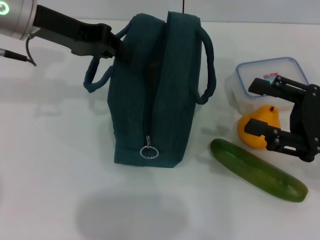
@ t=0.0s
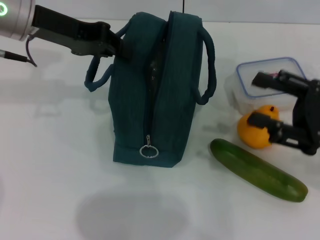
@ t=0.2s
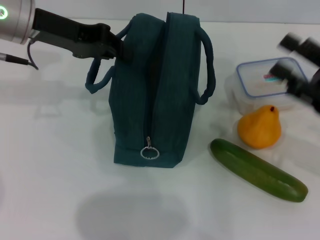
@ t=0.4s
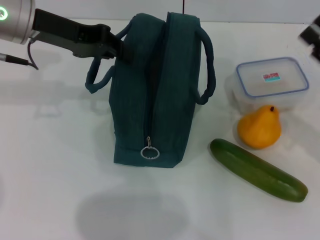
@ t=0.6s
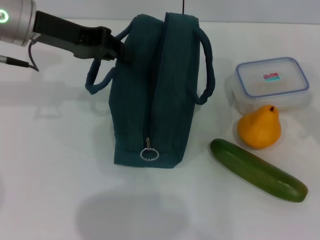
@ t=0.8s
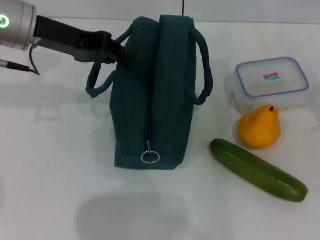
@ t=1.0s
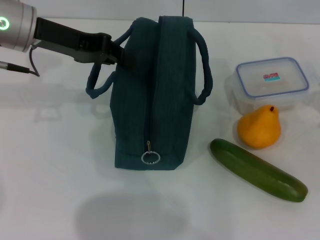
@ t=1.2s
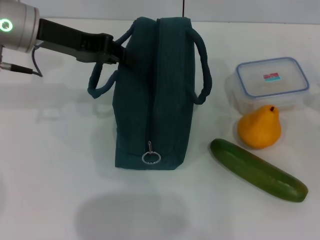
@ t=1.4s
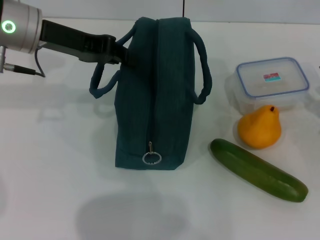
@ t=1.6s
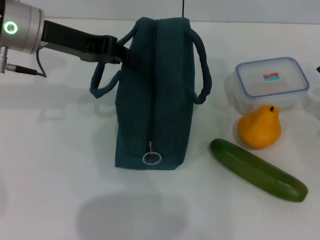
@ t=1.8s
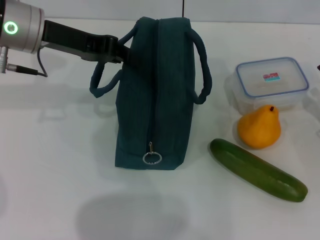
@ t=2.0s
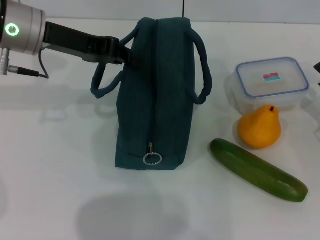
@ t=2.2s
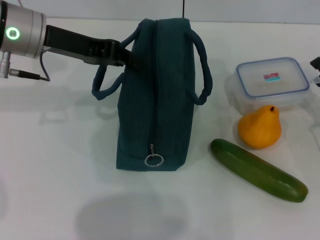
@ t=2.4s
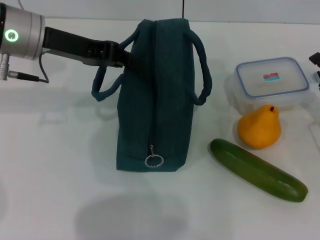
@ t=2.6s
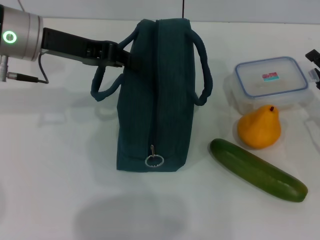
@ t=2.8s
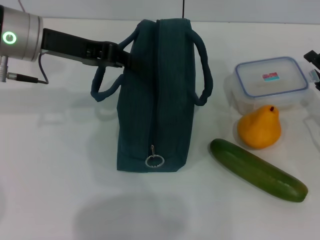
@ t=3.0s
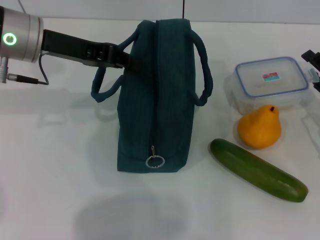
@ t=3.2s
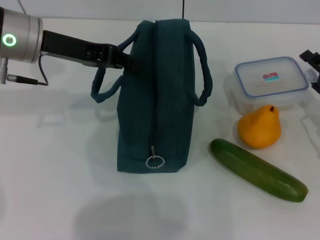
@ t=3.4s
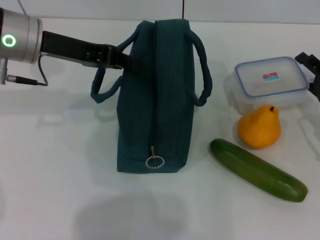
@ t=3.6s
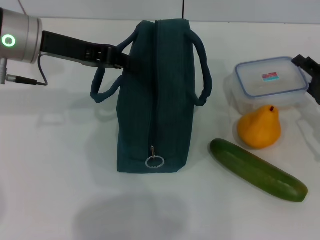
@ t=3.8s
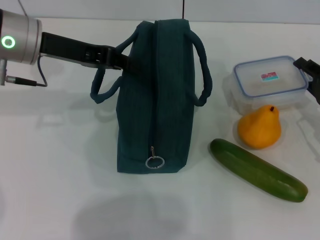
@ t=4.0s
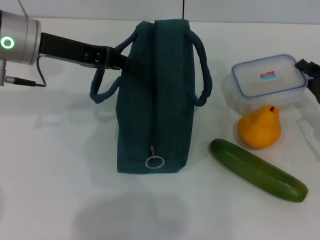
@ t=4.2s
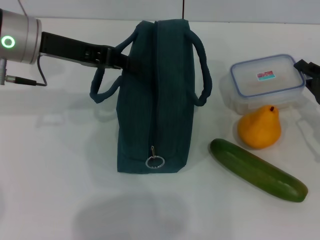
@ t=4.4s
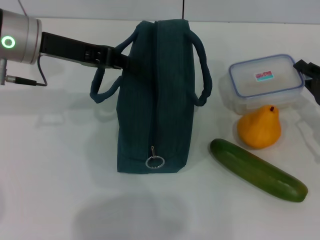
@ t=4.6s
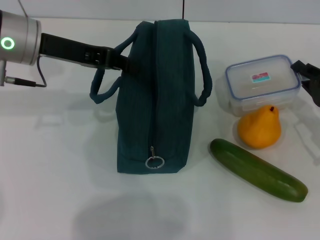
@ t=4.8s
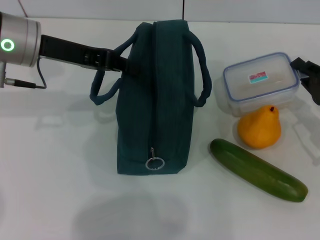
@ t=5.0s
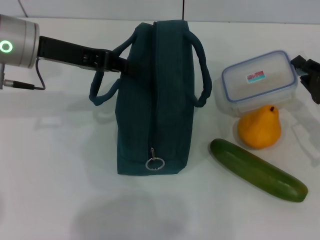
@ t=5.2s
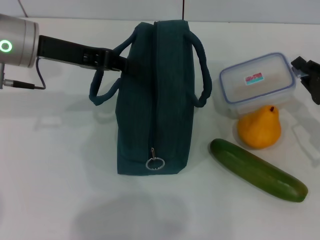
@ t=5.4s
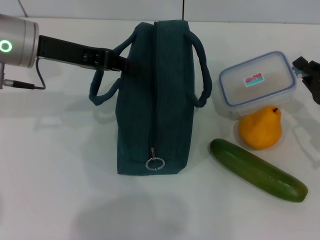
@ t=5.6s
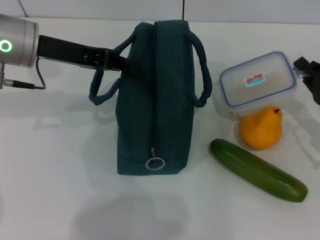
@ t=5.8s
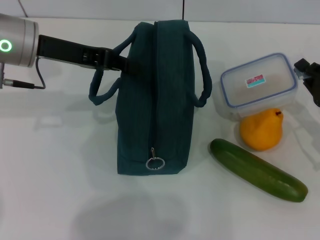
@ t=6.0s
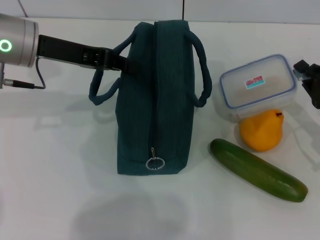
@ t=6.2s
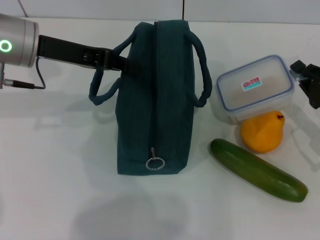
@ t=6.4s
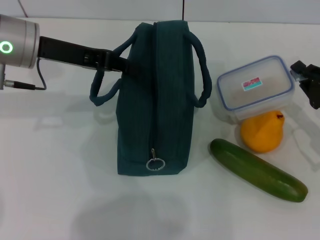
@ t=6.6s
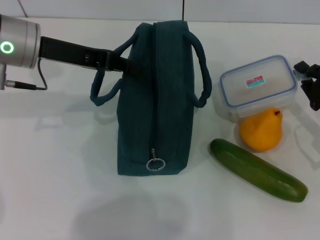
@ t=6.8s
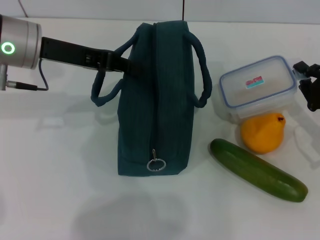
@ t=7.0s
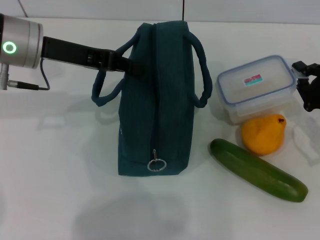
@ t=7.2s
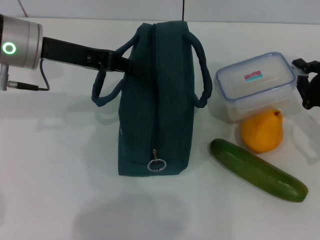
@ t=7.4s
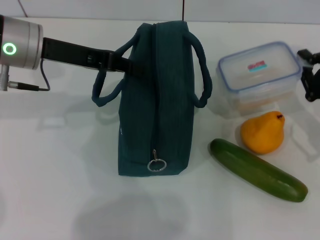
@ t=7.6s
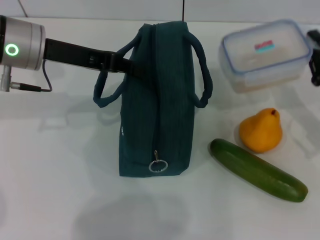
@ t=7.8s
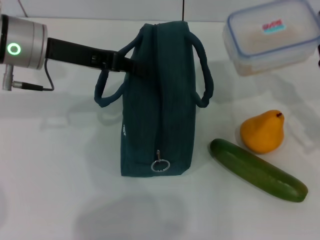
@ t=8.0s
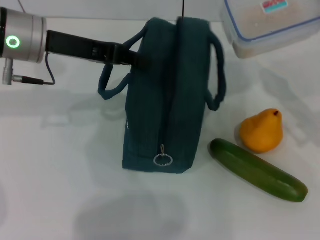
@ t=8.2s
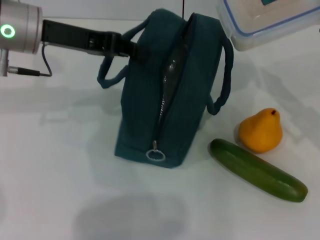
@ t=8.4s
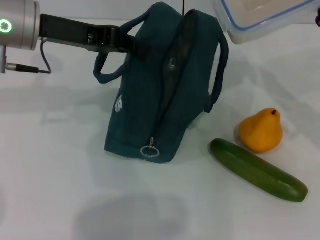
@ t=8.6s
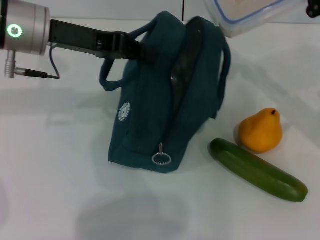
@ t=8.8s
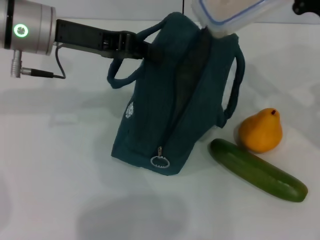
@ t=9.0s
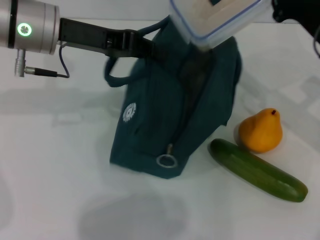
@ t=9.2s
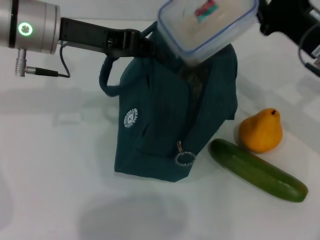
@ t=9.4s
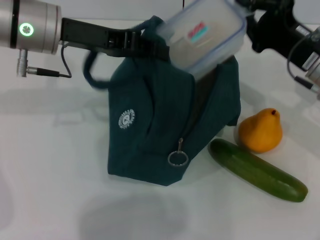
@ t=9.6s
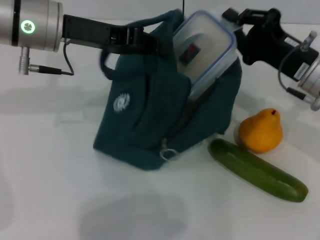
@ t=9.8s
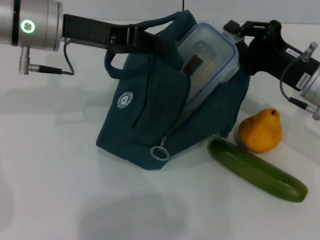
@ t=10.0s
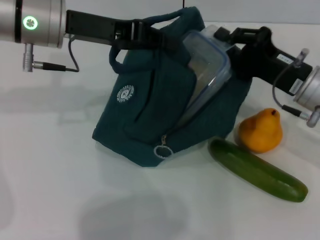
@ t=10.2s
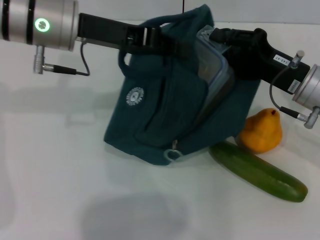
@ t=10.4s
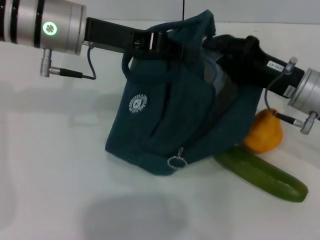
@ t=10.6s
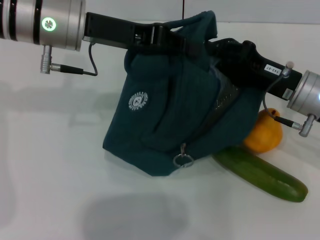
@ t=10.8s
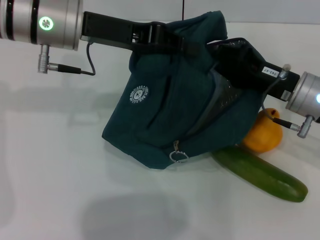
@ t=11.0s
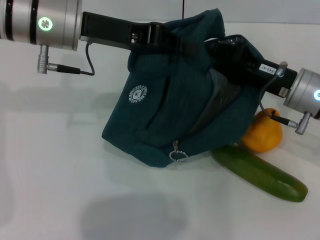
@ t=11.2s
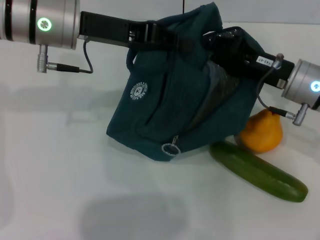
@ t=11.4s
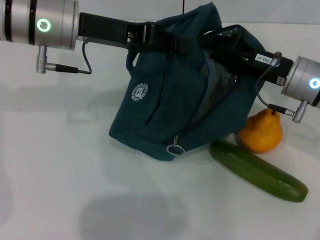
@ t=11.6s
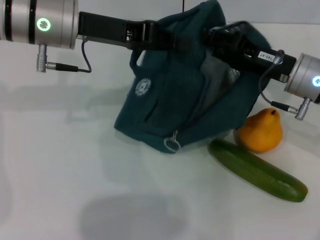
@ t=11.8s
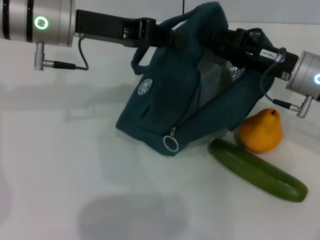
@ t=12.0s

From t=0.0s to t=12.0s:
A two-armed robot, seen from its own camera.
Step, from t=0.0s to t=4.4s: Pick up the lunch box with your right hand.
Step, from t=4.6s to t=11.8s: Place the lunch box into the lunch bag with your right hand.
From t=0.0s to t=1.6s: The right gripper moves downward and to the right, roughly 10 cm.
From t=1.6s to t=3.0s: The grippers make only small movements.
From t=3.0s to t=4.4s: The right gripper closes its fingers.
From t=4.4s to t=6.0s: There are only small adjustments of the grippers.
From t=7.6s to t=9.0s: The right gripper is displaced upward by roughly 10 cm.
From t=9.0s to t=10.4s: The right gripper ends up roughly 5 cm from where it was.

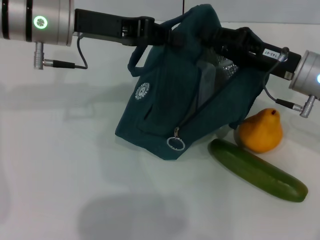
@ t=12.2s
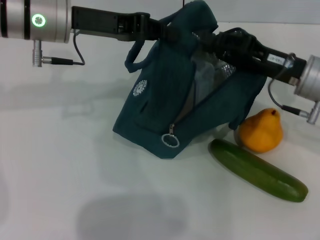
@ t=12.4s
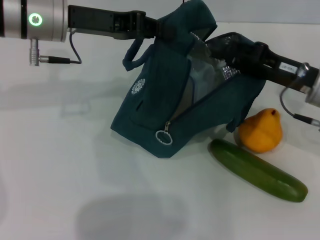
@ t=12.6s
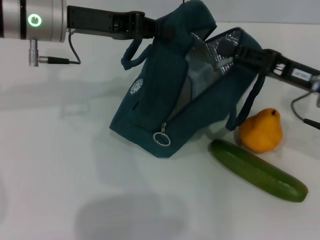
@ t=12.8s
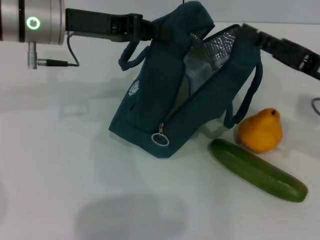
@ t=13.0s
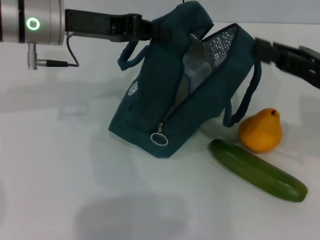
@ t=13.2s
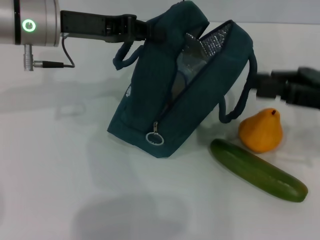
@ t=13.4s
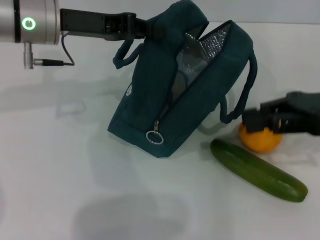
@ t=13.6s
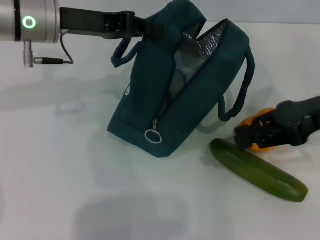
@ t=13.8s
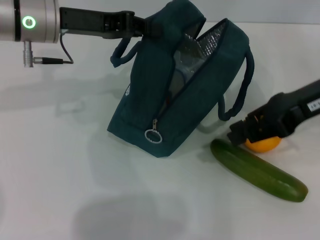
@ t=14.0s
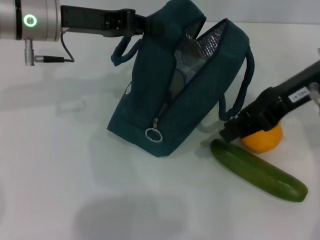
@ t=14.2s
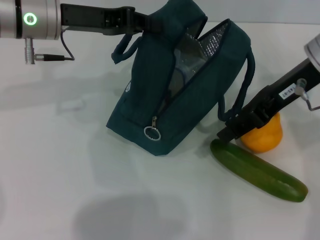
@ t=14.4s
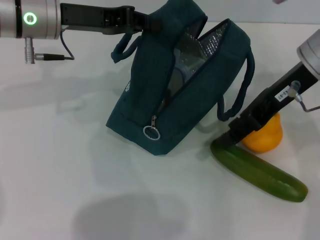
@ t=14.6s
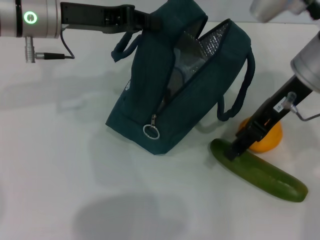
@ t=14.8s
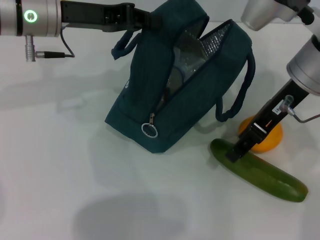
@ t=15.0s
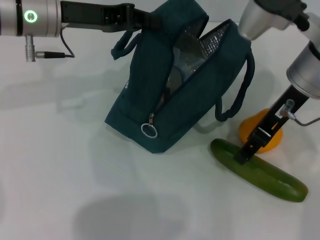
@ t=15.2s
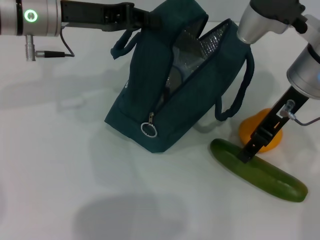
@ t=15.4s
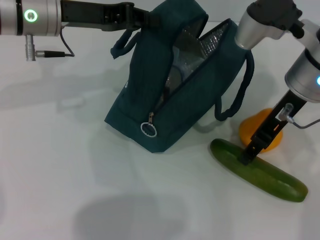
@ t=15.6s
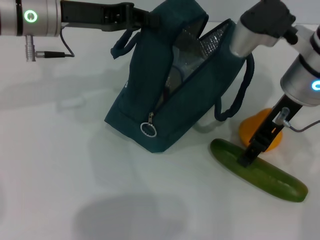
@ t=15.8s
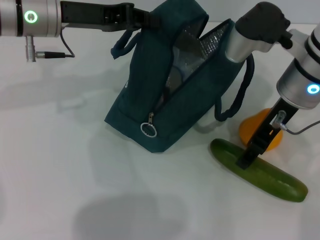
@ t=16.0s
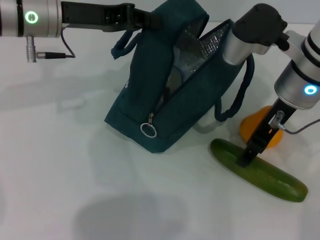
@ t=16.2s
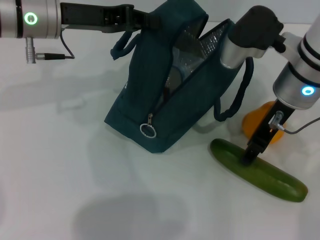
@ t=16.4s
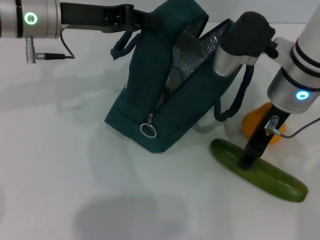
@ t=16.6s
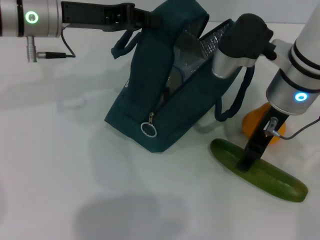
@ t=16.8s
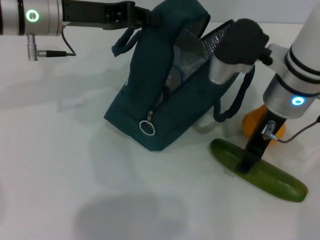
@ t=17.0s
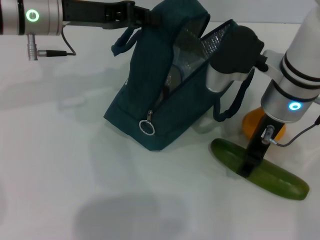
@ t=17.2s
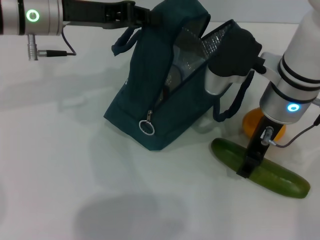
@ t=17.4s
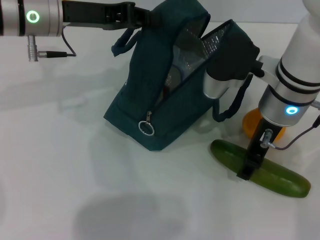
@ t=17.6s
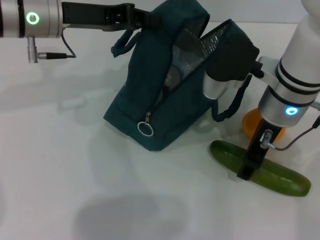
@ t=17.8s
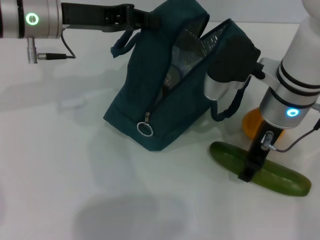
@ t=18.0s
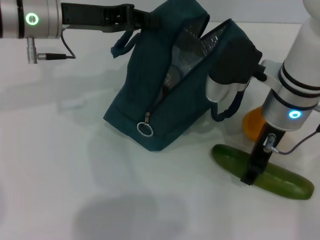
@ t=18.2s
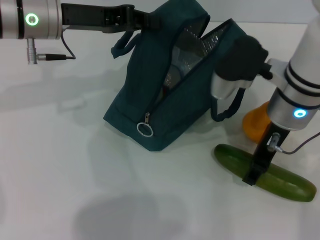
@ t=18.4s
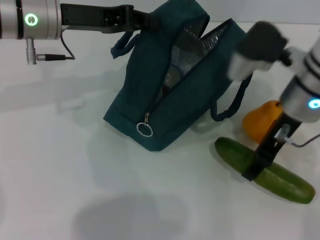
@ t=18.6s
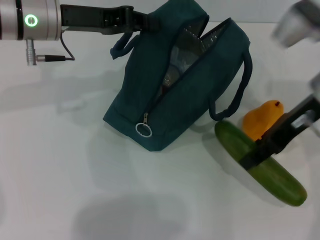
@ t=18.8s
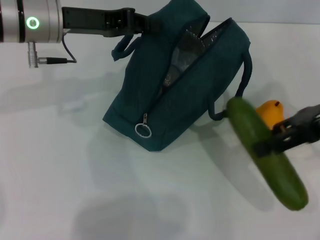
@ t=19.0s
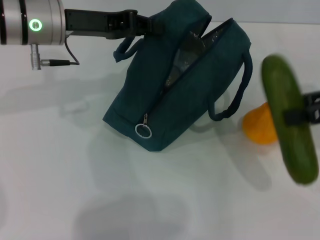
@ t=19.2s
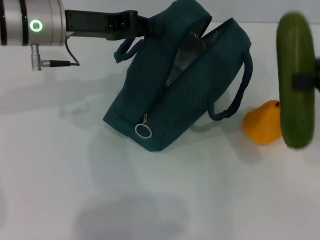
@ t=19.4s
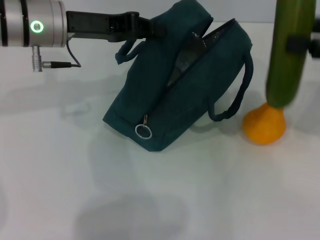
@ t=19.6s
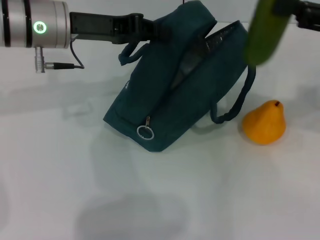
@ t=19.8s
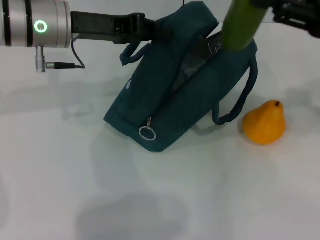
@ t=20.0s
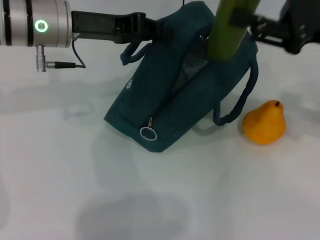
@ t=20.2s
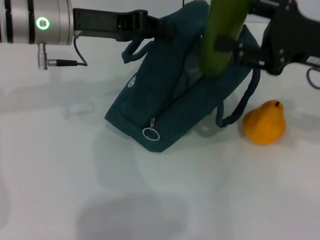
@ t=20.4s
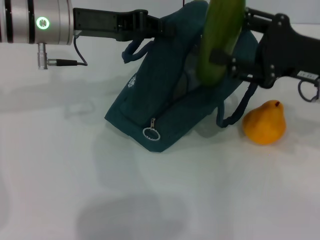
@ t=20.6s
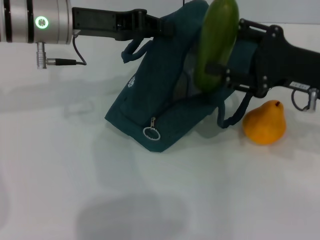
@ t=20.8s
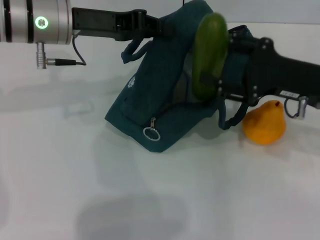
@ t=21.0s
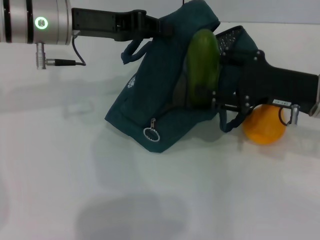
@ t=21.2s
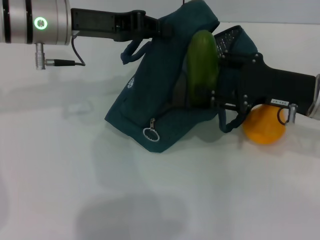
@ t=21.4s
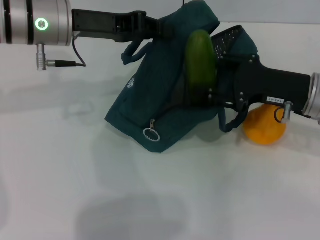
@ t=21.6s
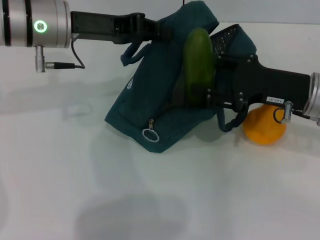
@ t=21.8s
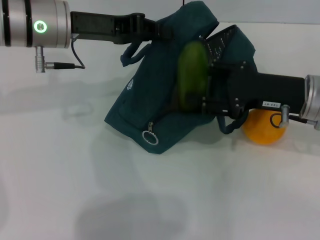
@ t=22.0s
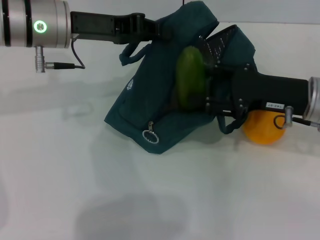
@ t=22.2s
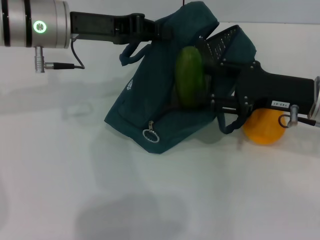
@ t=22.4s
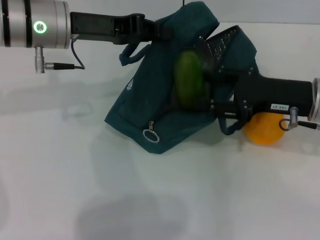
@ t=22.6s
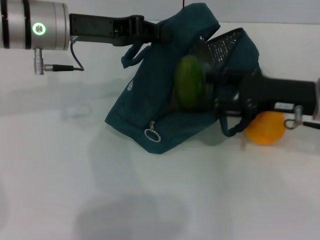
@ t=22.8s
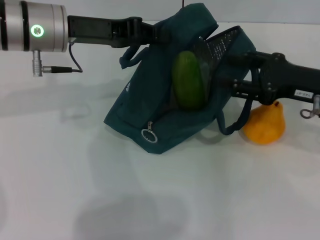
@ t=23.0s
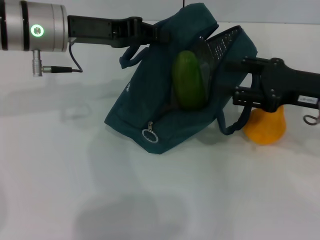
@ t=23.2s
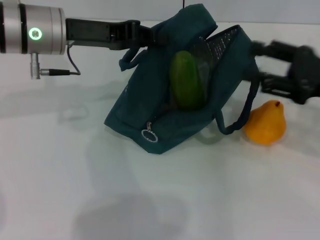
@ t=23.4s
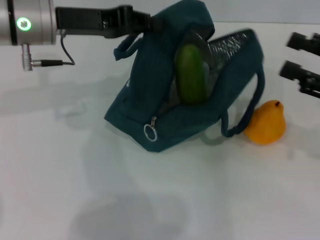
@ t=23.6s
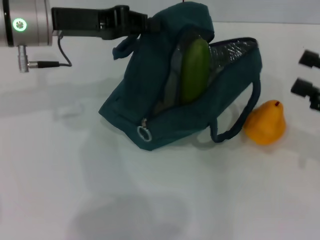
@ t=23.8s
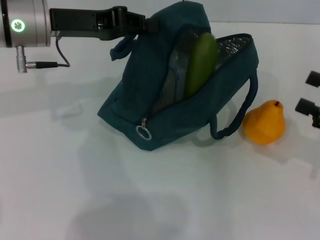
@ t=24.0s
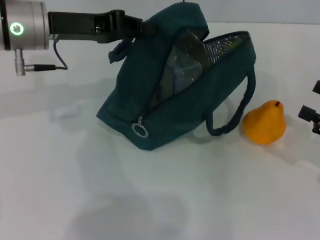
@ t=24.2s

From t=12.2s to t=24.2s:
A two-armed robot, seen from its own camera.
Step, from t=12.2s to t=18.0s: Pick up the cucumber with your right hand.
Step, from t=18.4s to t=22.8s: Put the cucumber into the lunch bag with your right hand.
From t=12.2s to t=13.8s: The right gripper shifts roughly 10 cm upward.
From t=13.8s to t=15.2s: The right gripper shifts approximately 10 cm to the left, and opens up.
From t=15.2s to t=18.2s: There are only small adjustments of the grippers.
From t=18.2s to t=19.8s: The right gripper is displaced to the right and upward by approximately 20 cm.
From t=19.8s to t=21.2s: The right gripper goes about 15 cm downward and to the left.
From t=21.2s to t=22.6s: The grippers make only small movements.
From t=22.6s to t=24.2s: The right gripper travels to the right and backward by roughly 15 cm.
